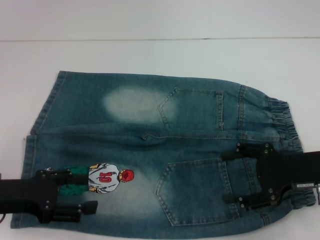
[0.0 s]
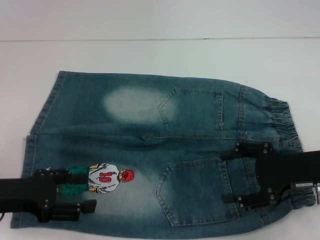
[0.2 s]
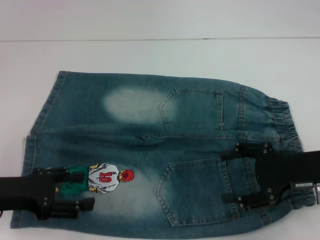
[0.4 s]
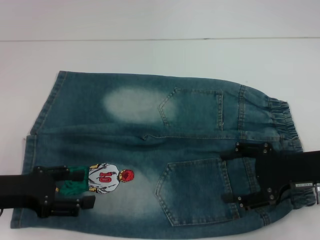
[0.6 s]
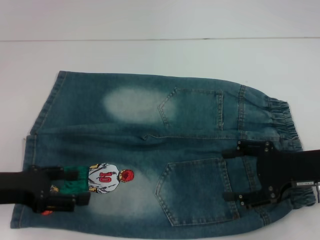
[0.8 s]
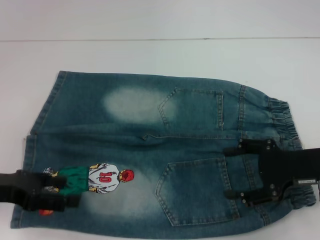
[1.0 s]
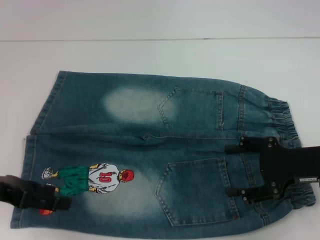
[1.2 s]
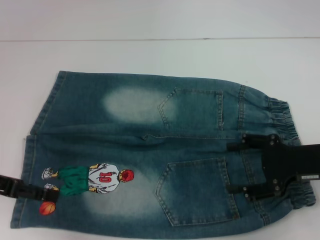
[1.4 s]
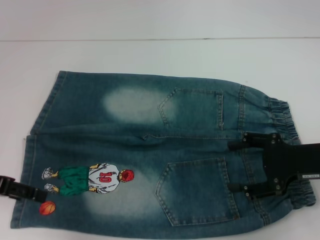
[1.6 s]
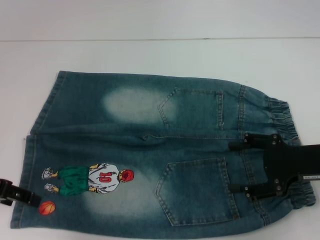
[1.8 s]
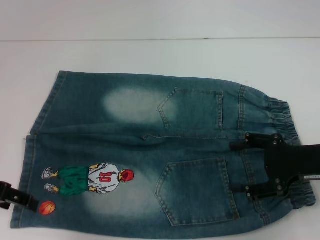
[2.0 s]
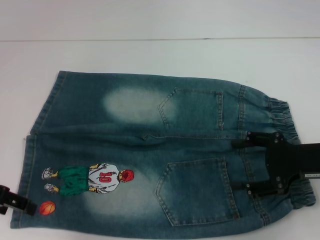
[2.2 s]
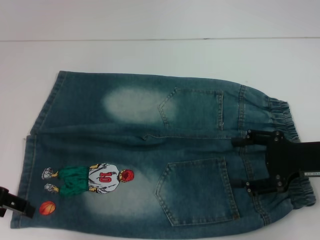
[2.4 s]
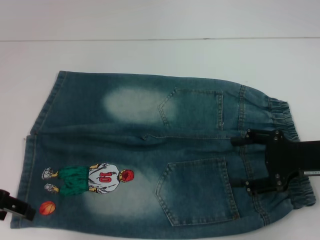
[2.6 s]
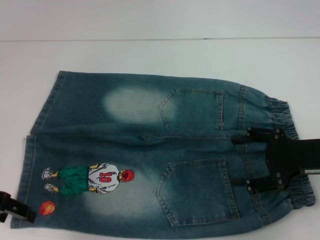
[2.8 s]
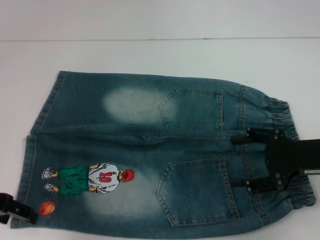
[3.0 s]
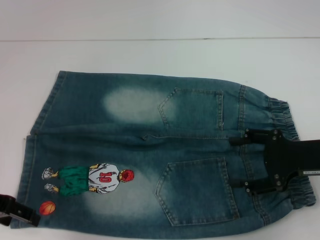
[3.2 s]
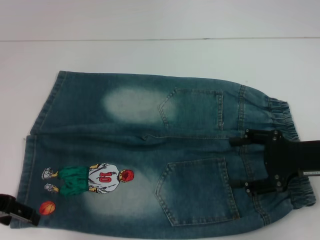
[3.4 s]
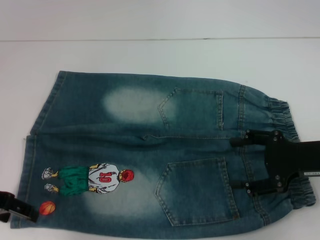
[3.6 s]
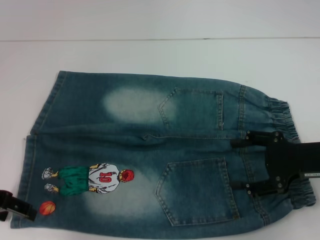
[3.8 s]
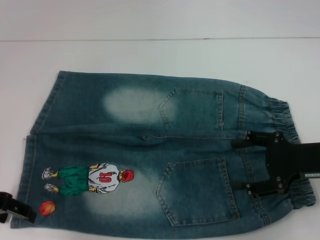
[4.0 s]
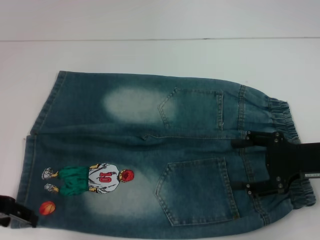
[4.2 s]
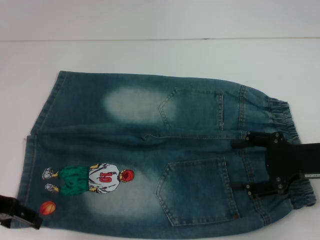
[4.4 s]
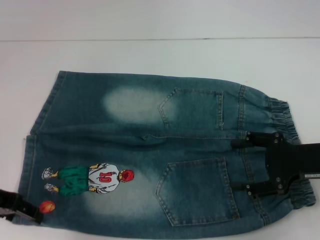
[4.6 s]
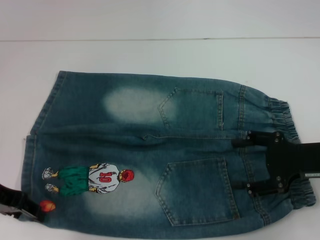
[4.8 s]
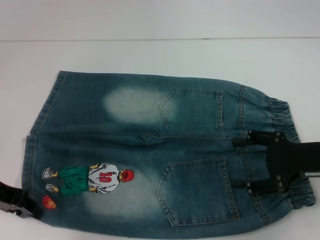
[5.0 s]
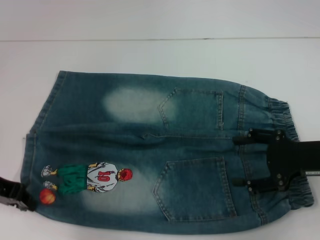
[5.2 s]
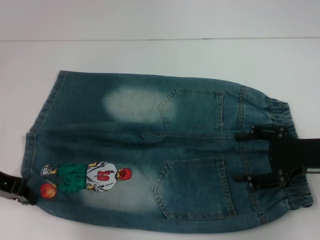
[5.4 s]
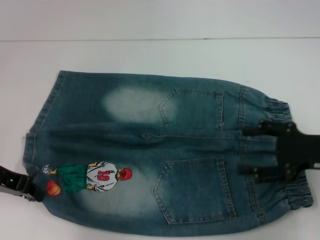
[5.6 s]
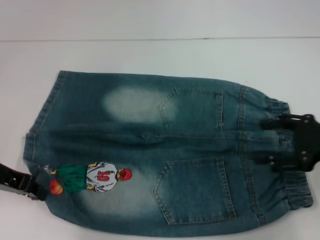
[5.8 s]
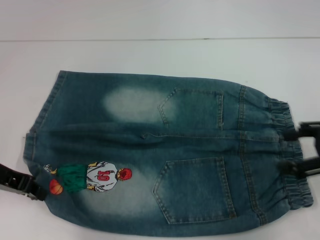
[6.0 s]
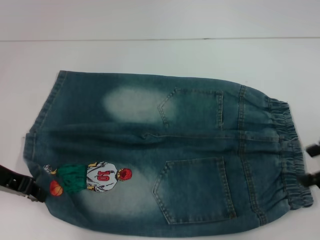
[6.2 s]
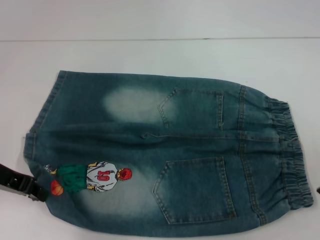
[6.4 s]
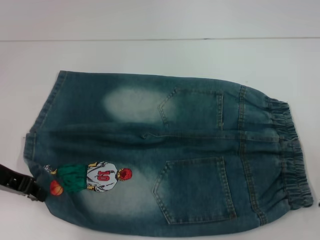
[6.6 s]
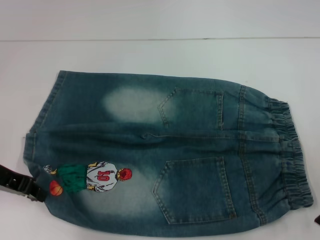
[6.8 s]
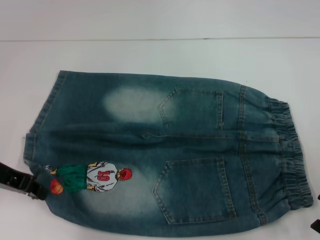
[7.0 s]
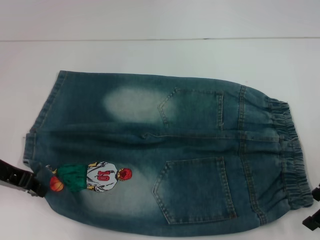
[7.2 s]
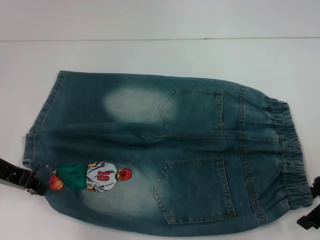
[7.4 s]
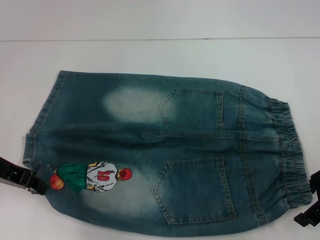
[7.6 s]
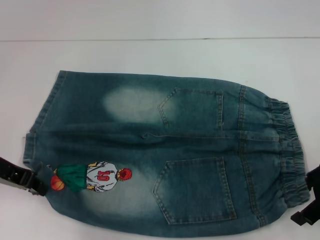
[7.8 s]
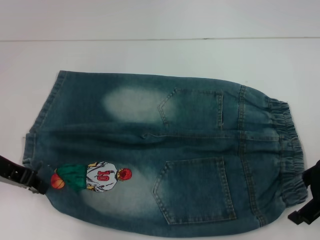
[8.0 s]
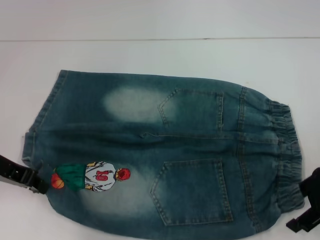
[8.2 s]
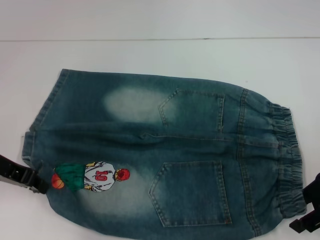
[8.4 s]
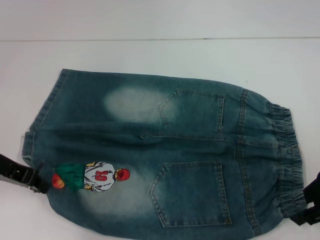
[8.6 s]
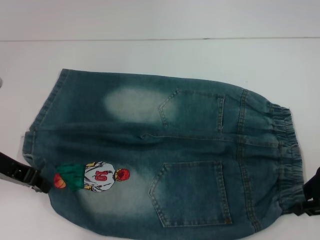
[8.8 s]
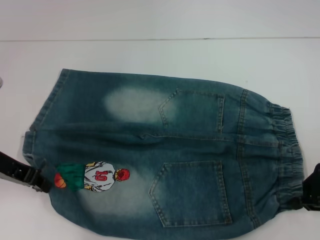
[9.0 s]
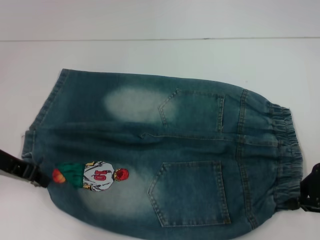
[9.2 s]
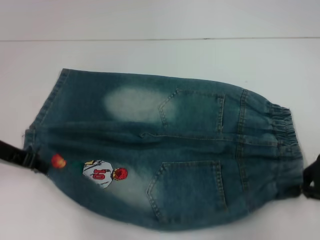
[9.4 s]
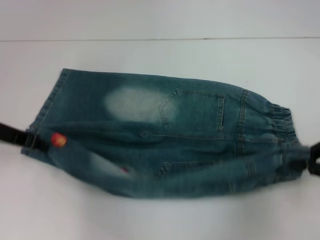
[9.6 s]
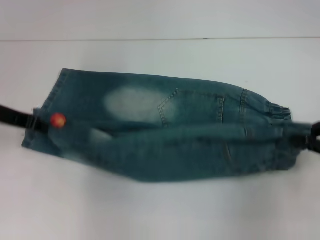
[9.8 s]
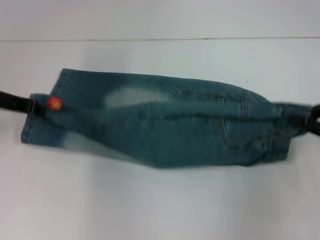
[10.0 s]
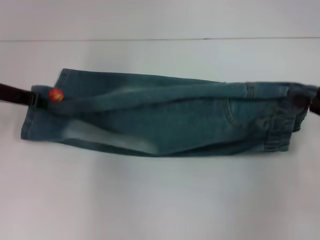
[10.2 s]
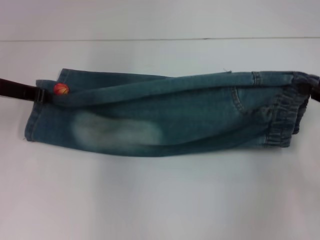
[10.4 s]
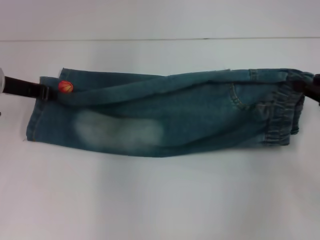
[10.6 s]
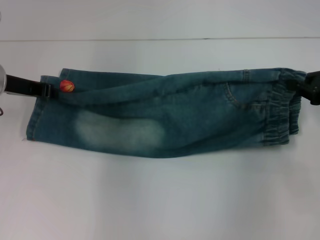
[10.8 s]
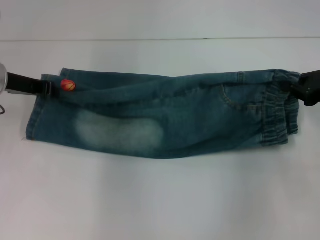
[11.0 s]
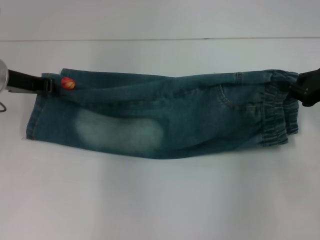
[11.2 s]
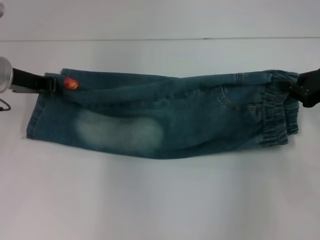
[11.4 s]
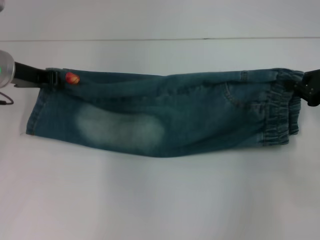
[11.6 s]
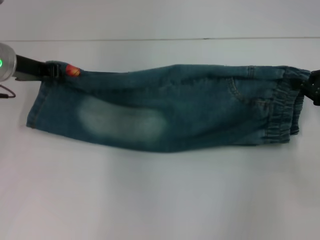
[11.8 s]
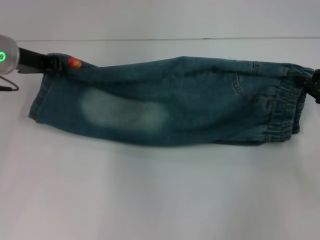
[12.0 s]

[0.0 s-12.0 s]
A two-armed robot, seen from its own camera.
Step, 0.0 to 5.0 s: Grab the lower left pant leg with your left hand.
Step, 5.2 to 8.8 s: Hold the lower right waistband with your right hand.
0.0 to 1.6 s: The left gripper heads upward, covering some 5 cm.
1.6 to 3.0 s: The grippers move only a little.
3.0 to 4.4 s: Both grippers stay about where they are.
4.4 to 6.0 s: The left gripper closes up. Meanwhile the right gripper goes approximately 5 cm upward.
7.6 to 9.0 s: The right gripper closes.
9.0 to 10.4 s: The right gripper travels to the right by some 5 cm. Meanwhile the left gripper is displaced forward by roughly 5 cm.
10.4 to 12.0 s: The grippers stay close to where they were, moving slightly.

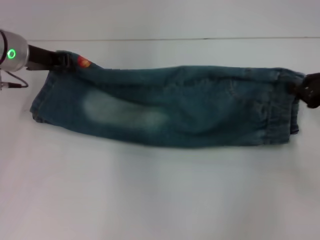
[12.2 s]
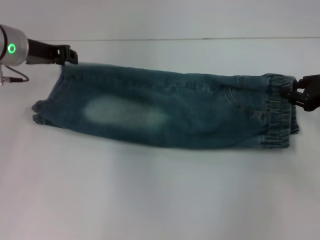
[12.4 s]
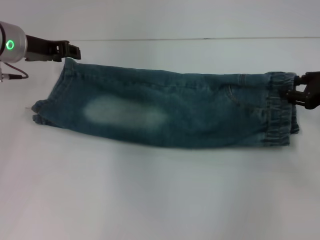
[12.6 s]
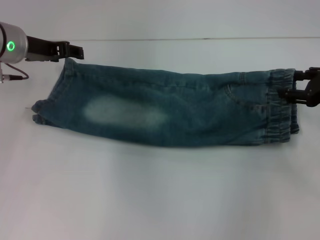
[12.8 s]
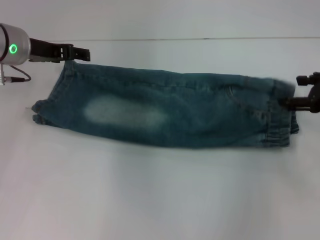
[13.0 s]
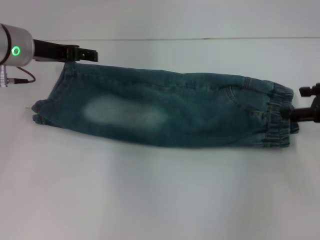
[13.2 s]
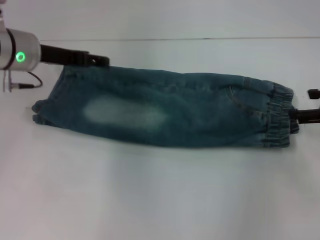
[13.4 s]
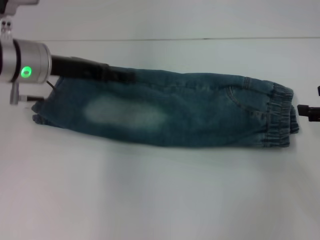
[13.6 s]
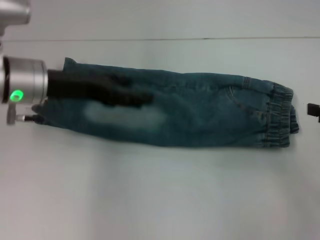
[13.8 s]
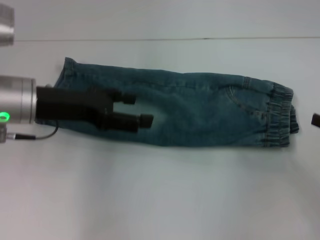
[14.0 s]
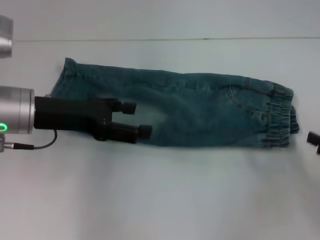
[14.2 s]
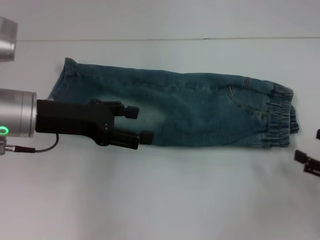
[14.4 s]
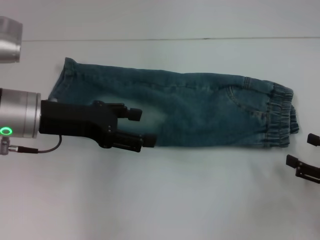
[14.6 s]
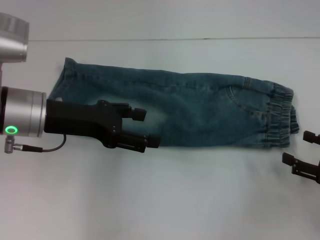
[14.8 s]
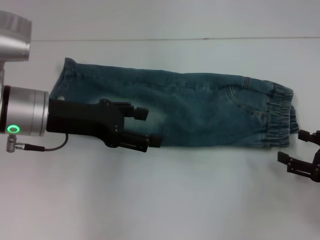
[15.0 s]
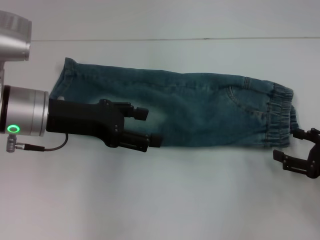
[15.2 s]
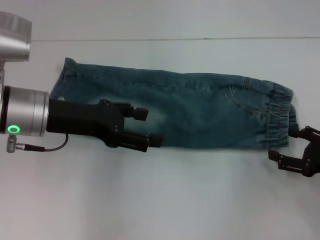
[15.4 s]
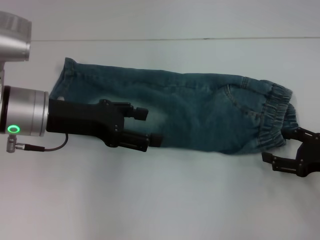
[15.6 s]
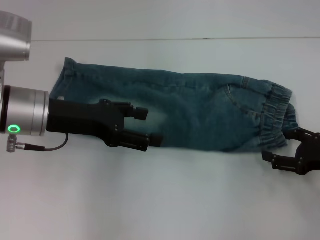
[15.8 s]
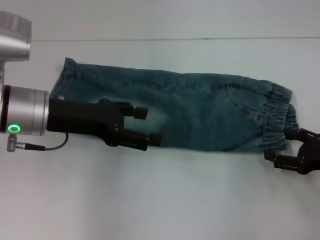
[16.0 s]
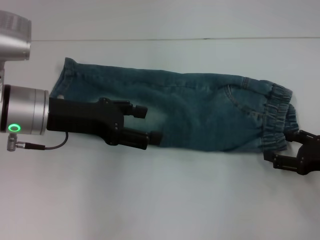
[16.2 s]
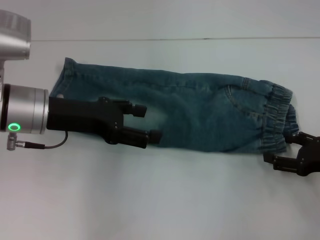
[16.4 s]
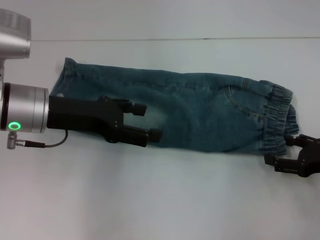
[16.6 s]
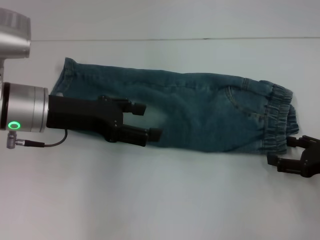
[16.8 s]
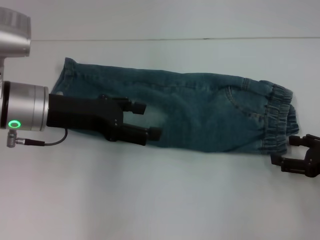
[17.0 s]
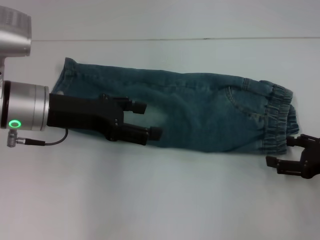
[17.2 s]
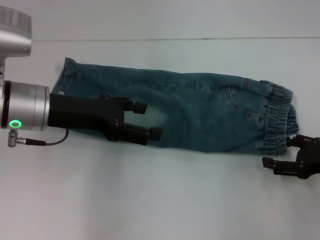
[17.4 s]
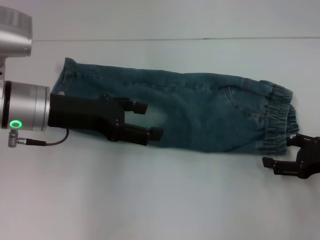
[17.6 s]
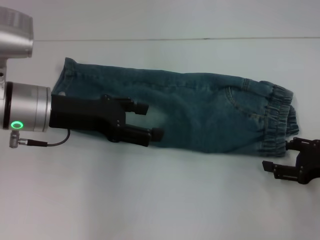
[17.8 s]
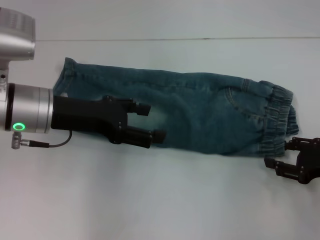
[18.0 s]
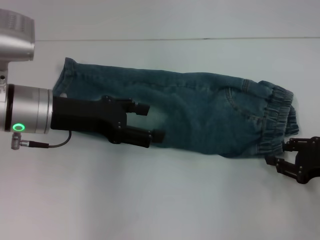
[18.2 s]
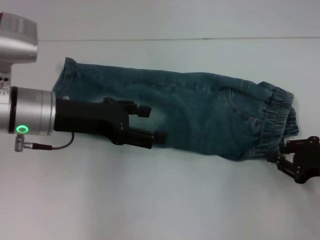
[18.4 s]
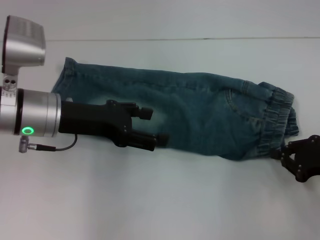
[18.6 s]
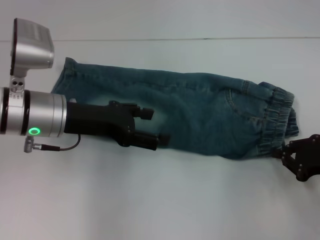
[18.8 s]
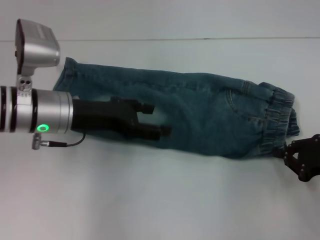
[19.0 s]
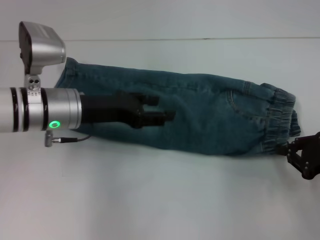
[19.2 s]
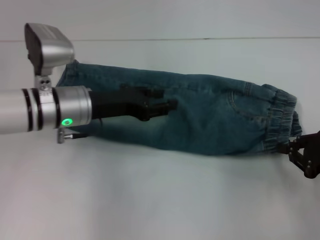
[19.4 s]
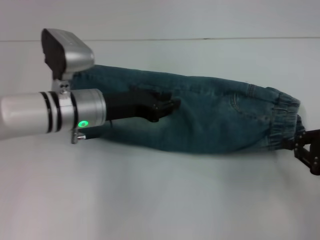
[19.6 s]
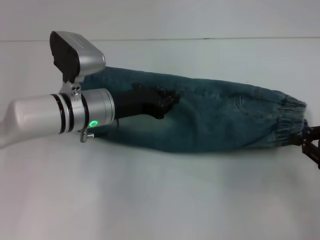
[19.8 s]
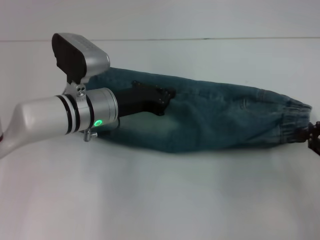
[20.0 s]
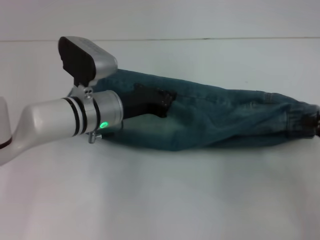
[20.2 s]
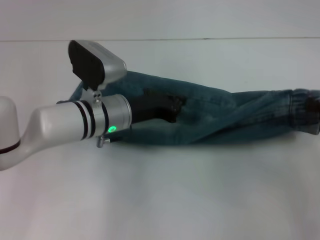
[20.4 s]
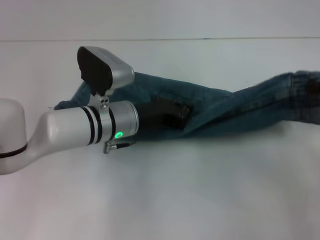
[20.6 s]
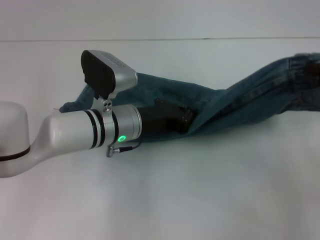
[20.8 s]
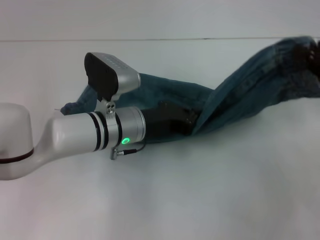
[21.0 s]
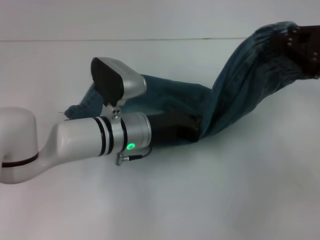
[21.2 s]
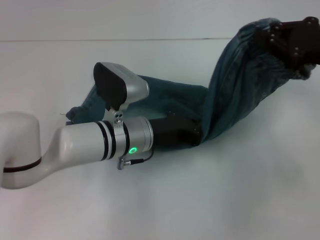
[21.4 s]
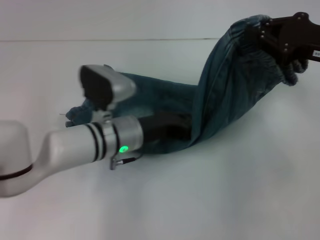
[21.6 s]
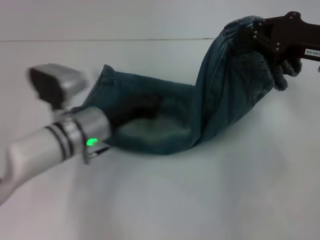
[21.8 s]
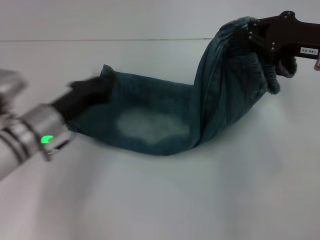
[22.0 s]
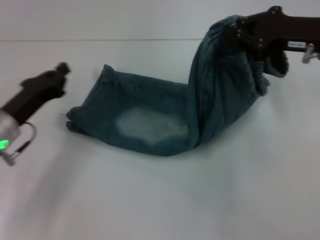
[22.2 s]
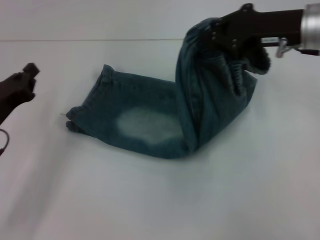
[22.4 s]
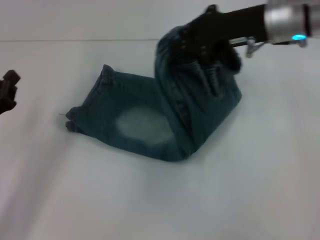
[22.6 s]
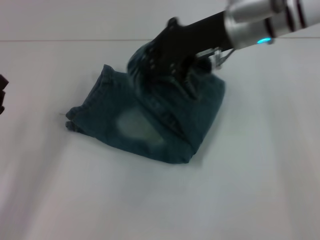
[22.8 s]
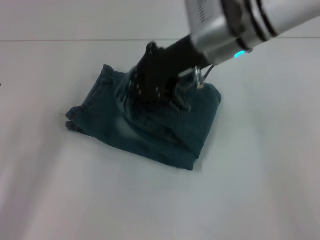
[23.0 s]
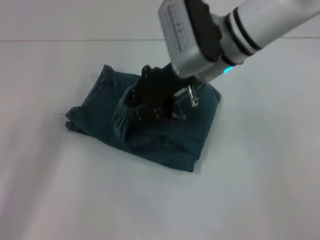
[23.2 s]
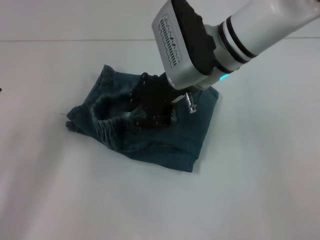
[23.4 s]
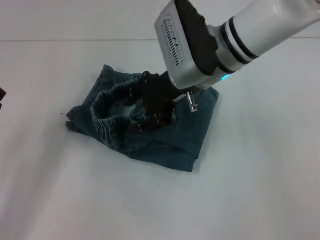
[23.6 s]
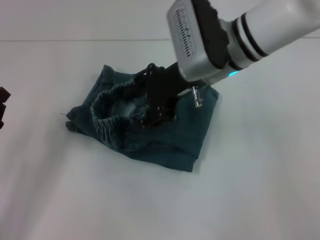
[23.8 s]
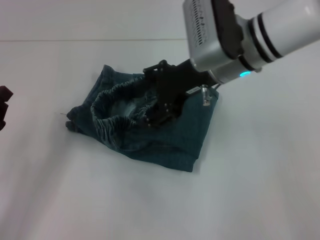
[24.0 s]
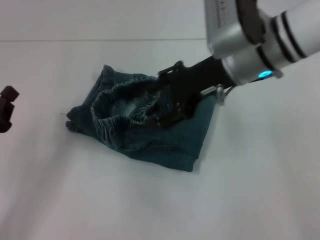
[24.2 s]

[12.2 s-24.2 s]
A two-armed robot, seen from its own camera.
Step, 12.6 to 13.0 s: Fold upward with your right hand.
Step, 13.2 to 19.2 s: Grab the waistband with your right hand.
Step, 19.4 to 21.4 s: Press the middle of the pants with your left hand.
12.2 to 13.8 s: Both grippers travel together backward, roughly 5 cm. The left gripper opens, while the right gripper opens up.
13.8 to 15.2 s: The right gripper shifts some 10 cm downward.
15.2 to 18.2 s: The grippers make only small movements.
18.2 to 19.8 s: The left gripper is displaced downward and to the right by approximately 10 cm, and closes. Meanwhile the right gripper closes up.
19.8 to 21.2 s: The right gripper travels upward and forward by about 10 cm. The left gripper travels to the right by some 5 cm.
21.2 to 22.6 s: The left gripper shifts some 25 cm to the left, while the right gripper is displaced to the left and forward by some 15 cm.
22.6 to 24.2 s: The right gripper opens up.
